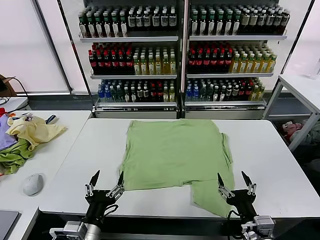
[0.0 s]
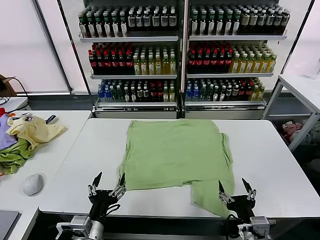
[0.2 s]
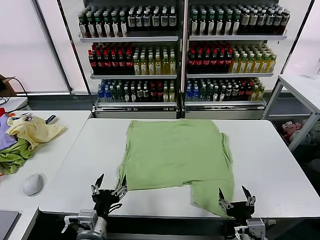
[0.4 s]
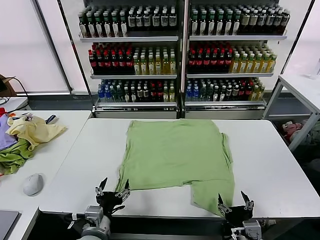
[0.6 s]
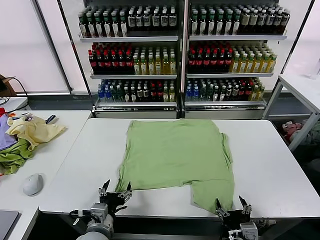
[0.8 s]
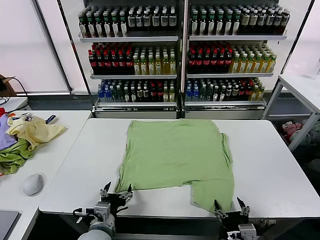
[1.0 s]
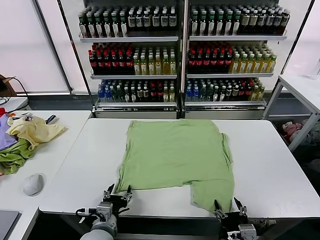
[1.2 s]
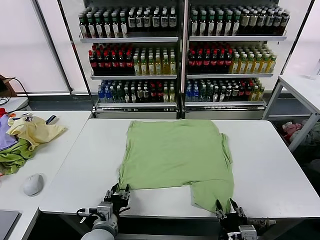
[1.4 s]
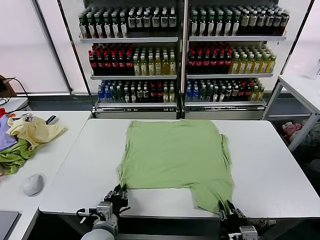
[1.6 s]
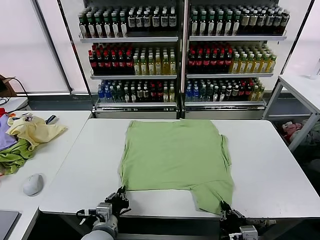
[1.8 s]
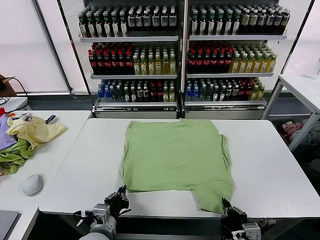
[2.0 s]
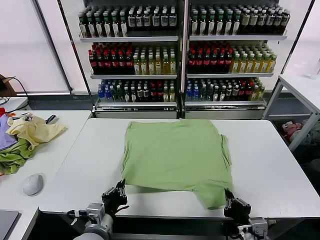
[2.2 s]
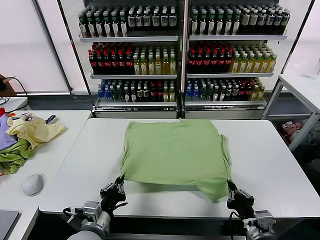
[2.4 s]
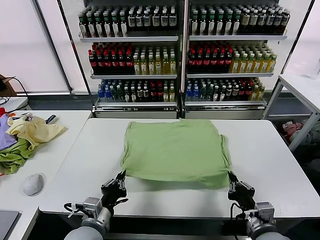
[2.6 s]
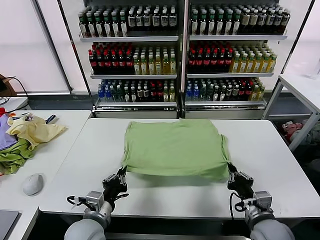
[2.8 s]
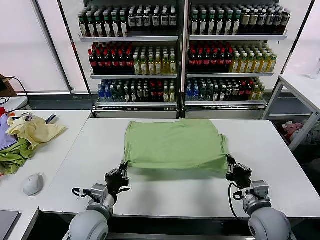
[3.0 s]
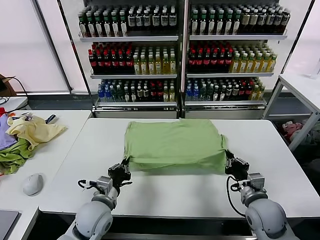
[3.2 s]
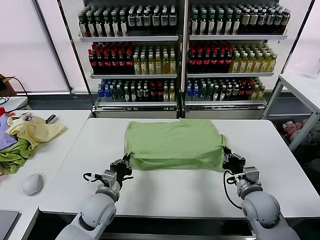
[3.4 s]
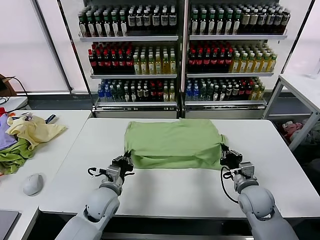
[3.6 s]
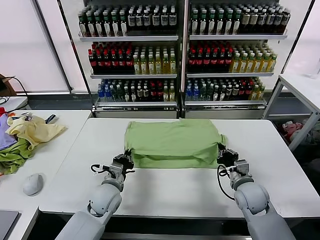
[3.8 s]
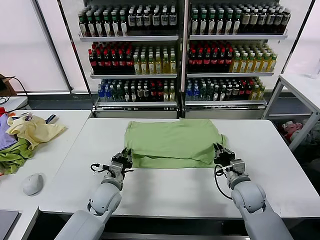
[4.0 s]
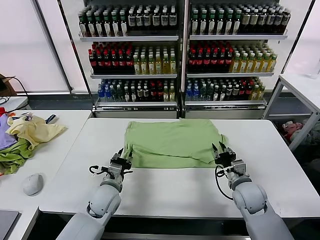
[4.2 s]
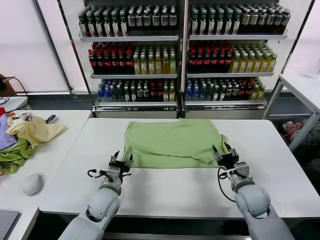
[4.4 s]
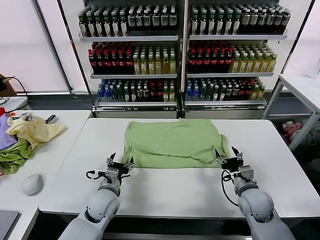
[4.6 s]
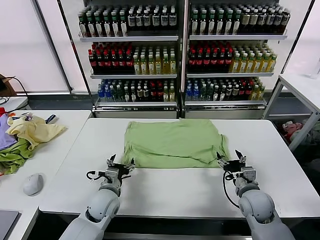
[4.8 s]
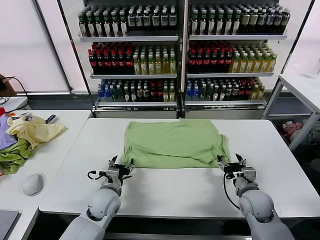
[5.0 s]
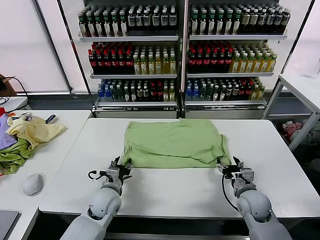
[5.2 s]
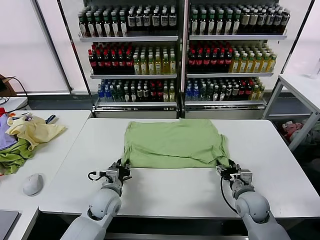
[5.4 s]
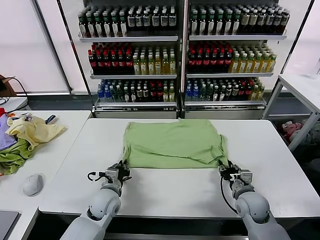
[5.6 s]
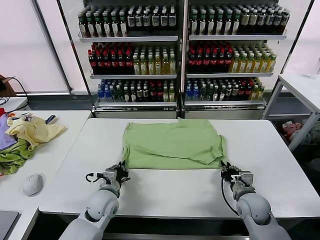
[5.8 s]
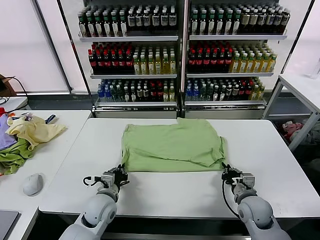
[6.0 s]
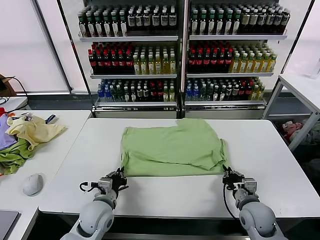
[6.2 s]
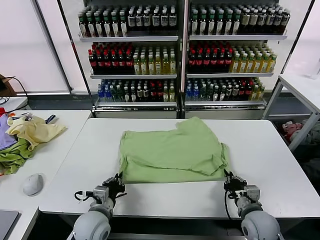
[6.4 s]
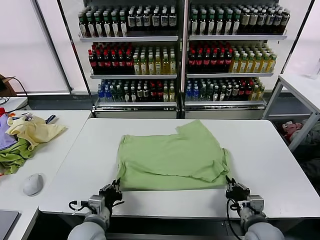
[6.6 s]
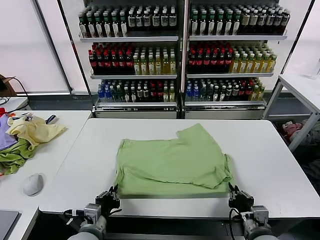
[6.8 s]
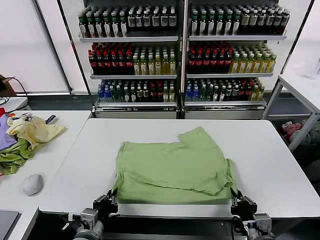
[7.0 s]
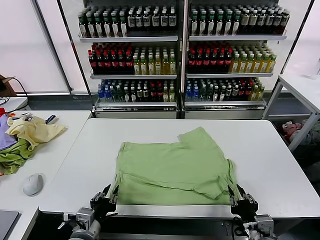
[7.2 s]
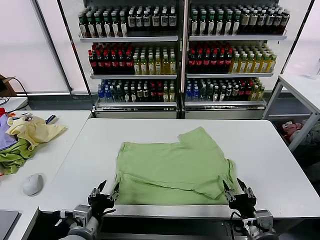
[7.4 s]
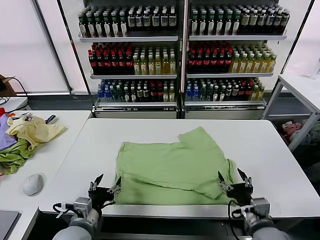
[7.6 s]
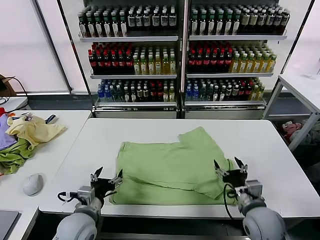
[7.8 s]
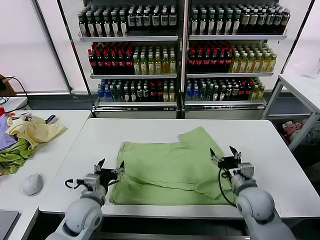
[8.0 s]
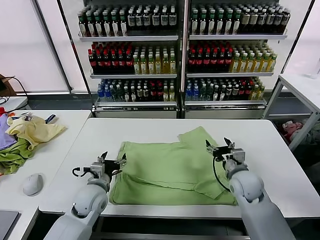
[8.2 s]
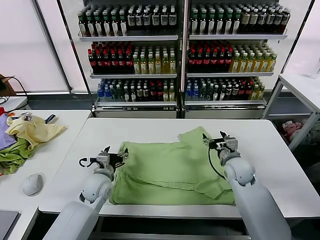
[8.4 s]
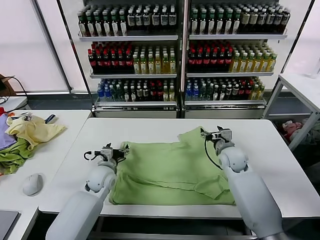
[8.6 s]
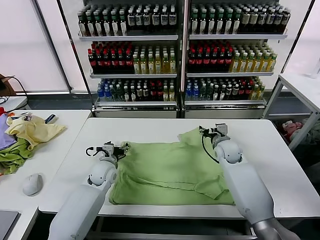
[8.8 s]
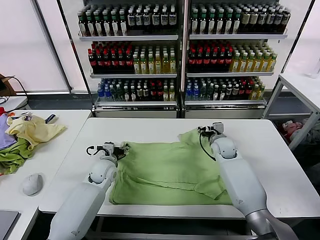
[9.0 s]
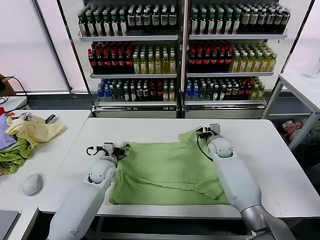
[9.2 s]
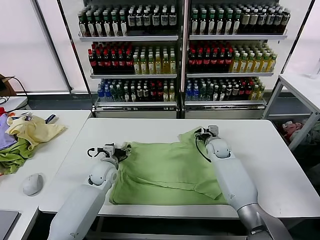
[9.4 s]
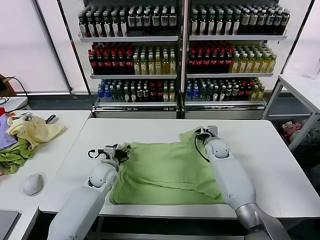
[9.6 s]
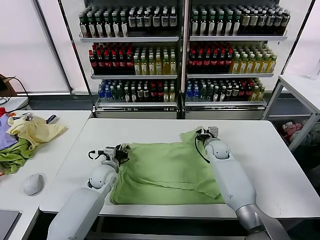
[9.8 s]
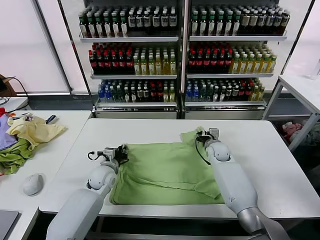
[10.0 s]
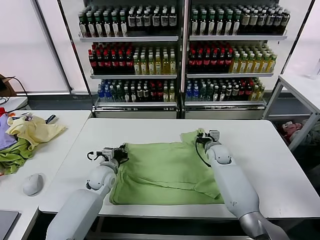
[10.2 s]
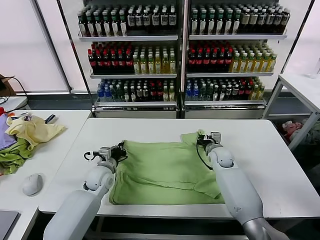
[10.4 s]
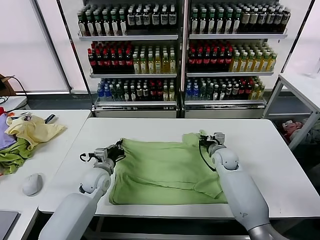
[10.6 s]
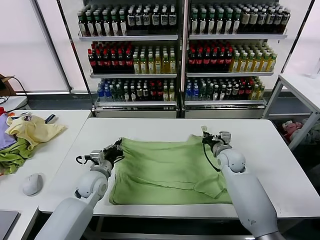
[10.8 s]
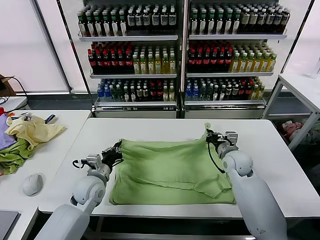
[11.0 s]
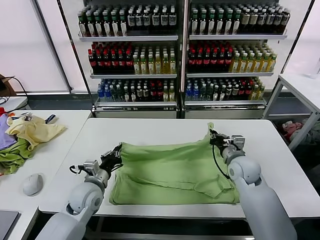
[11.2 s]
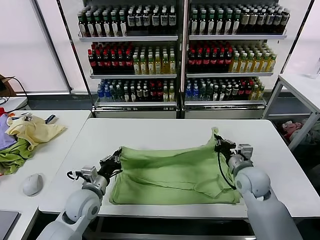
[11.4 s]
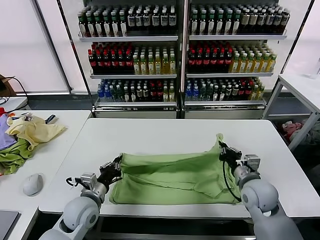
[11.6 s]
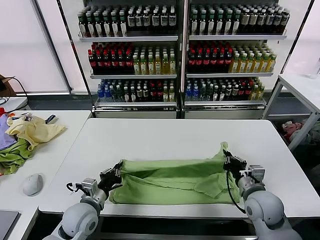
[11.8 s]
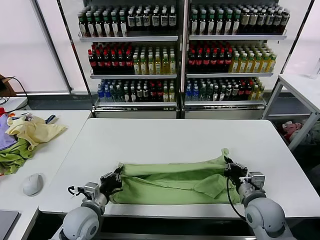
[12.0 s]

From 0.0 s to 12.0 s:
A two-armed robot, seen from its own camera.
Task of the whole recording: fold and organize the clothes.
Step, from 0.0 s to 1.8 s: use both grippers simultaneously to clamp the lower edge of the clothing fabric.
Step, from 2.0 s to 4.2 s: use both grippers to drag the lower edge of the fabric forward and fold it over the upper edge.
Step, from 4.4 s to 7.2 s: Drag the clothes downward with both gripper.
Step, from 7.4 s to 10.2 s: use both grippers simultaneously to clamp the upper edge of the clothing fabric.
From 1.6 s to 3.0 s: The left gripper is displaced forward by some 5 cm. The right gripper shifts roughly 15 cm forward.
From 3.0 s to 4.4 s: The grippers both shift forward by some 5 cm. The right gripper opens. Meanwhile the left gripper opens up.
From 4.4 s to 6.0 s: The right gripper closes up; the left gripper closes.
From 6.0 s to 7.6 s: Both grippers move backward and upward, some 10 cm. The left gripper opens. The right gripper opens up.
From 7.6 s to 9.0 s: The grippers both shift forward by some 30 cm.
From 9.0 s to 10.4 s: The left gripper closes its fingers. Meanwhile the right gripper closes its fingers.
From 10.4 s to 12.0 s: The two grippers go some 20 cm backward.

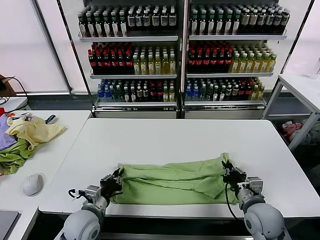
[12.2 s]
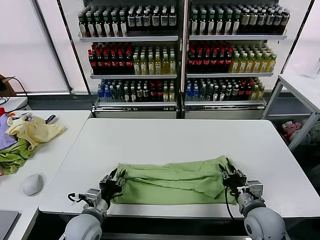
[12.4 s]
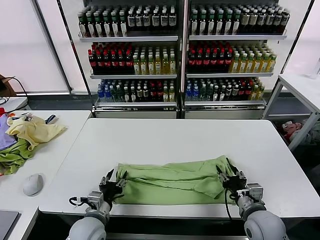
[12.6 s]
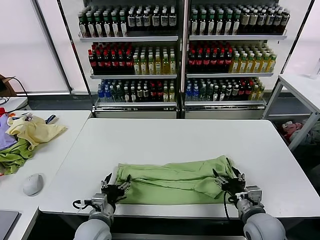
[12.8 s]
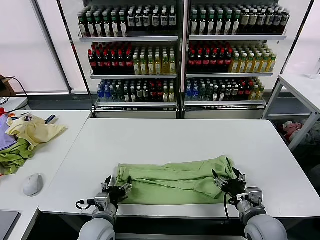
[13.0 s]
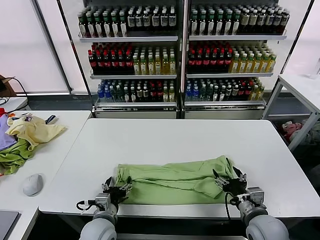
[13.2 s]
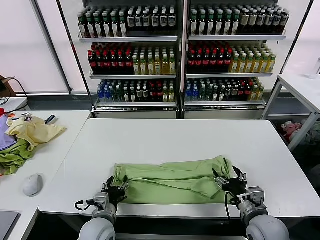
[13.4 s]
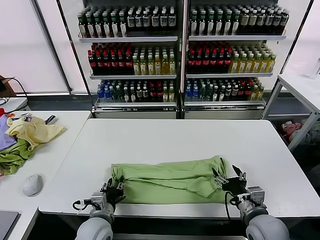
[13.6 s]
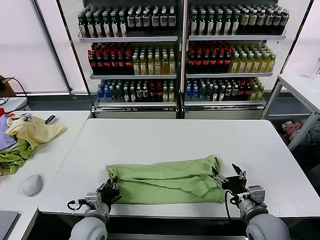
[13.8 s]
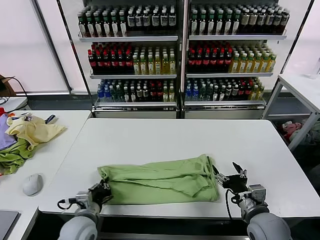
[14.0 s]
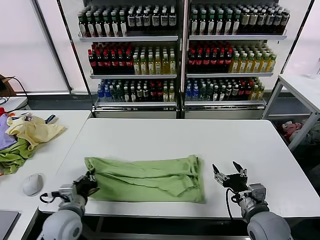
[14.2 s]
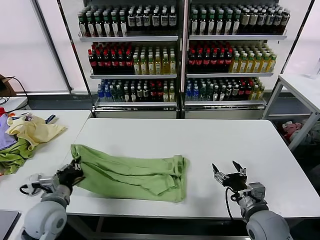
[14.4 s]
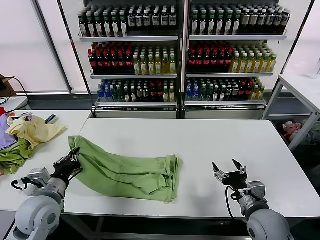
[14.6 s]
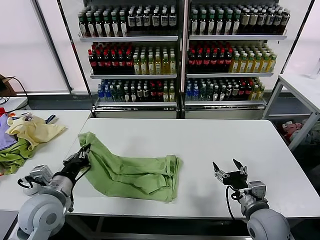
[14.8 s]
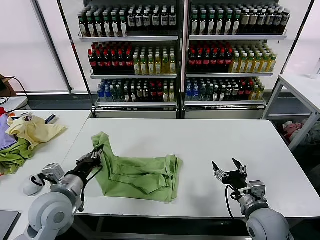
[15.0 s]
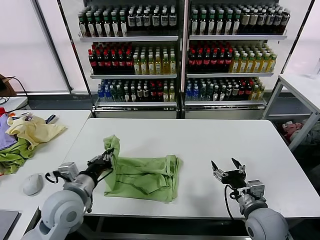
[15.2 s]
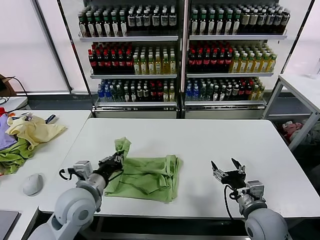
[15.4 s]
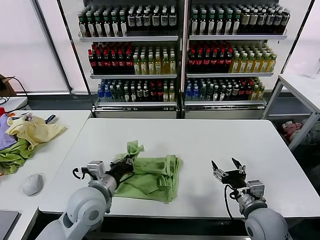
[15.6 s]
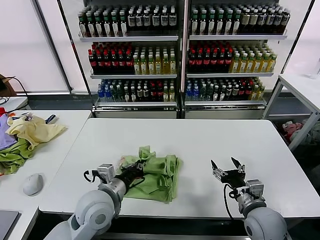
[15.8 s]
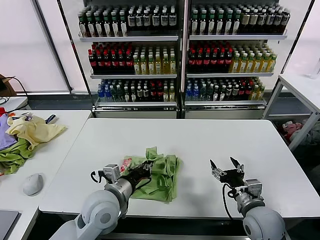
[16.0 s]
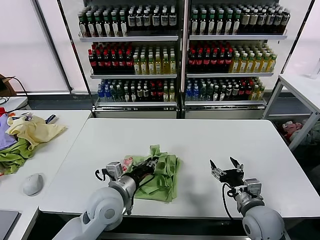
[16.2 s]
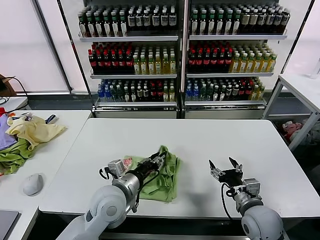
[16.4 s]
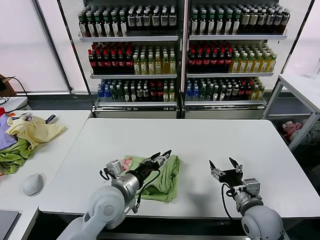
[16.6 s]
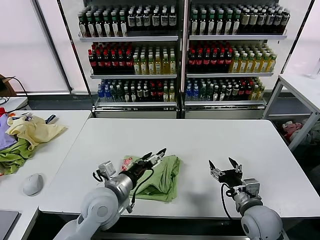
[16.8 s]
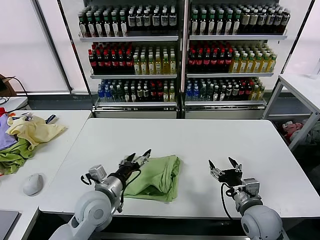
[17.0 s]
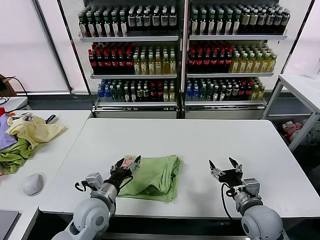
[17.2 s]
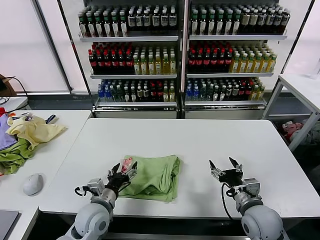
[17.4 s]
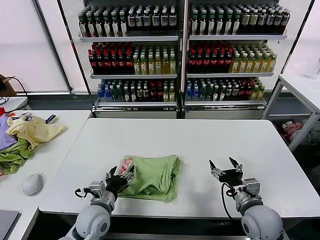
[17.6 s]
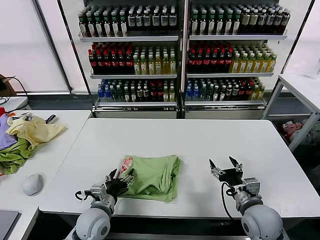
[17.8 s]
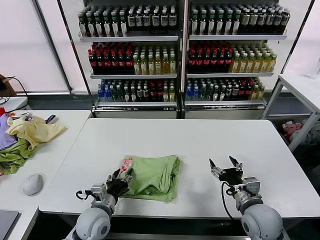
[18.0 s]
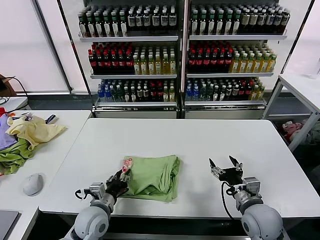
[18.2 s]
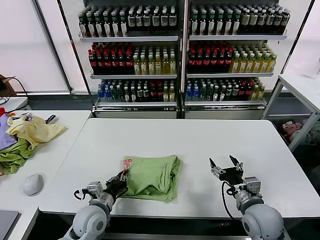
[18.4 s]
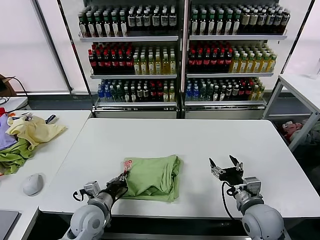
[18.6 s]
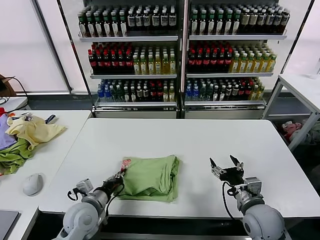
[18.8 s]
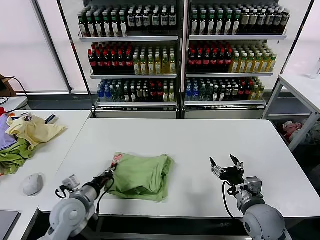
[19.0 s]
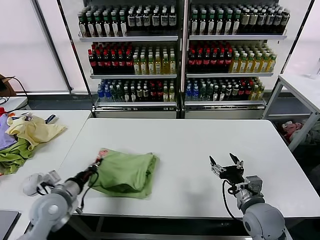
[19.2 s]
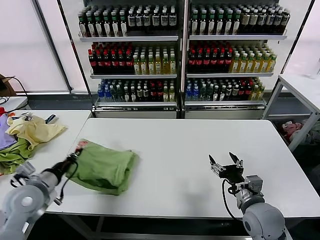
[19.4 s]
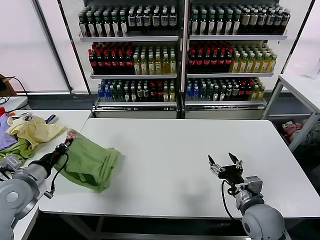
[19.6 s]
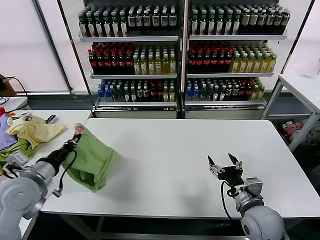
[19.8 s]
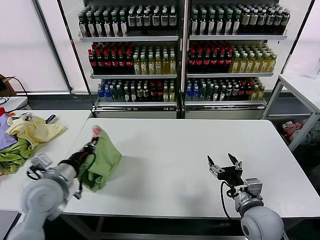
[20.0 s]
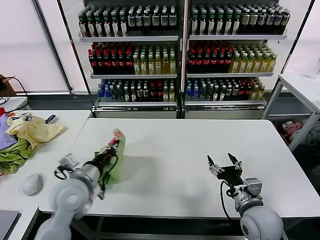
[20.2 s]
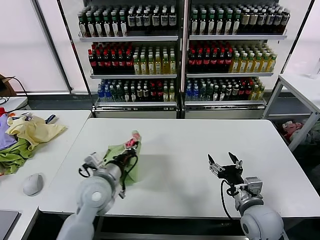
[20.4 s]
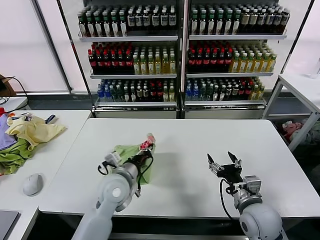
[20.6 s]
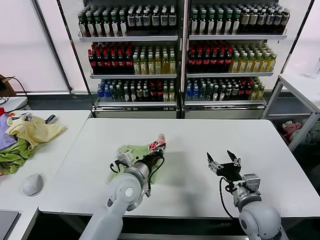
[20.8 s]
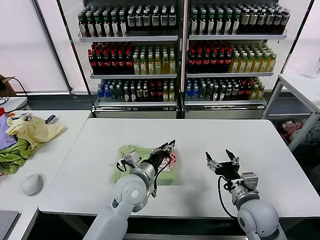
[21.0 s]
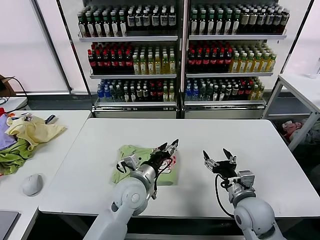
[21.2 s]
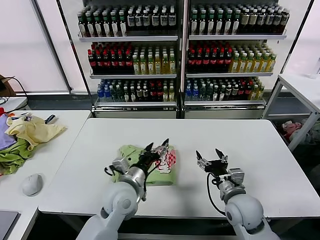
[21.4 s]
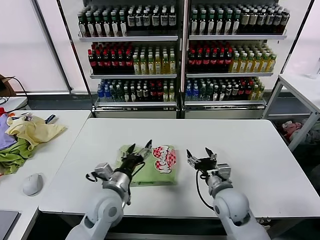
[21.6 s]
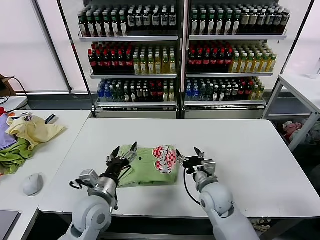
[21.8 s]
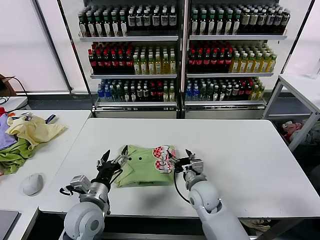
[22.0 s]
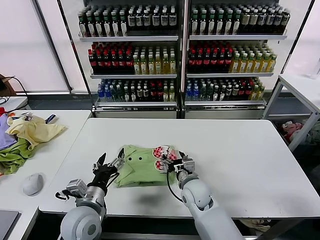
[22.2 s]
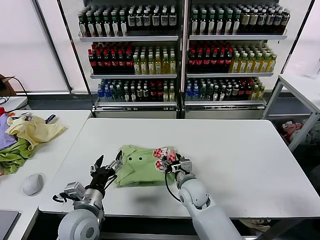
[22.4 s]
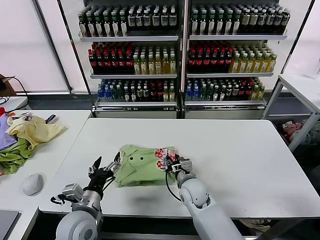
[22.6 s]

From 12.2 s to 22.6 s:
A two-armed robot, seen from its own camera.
Task of the whole recording: fold and organize the clothes.
Step, from 12.6 s to 13.8 s: use the left gripper to clamp the left edge of the fabric.
Step, from 14.0 s to 16.4 s: use the left gripper to drag the left edge of the fabric to the left and folds it over the right edge.
Step, from 16.6 s to 21.0 s: Flip the folded clothes over with left gripper.
From 12.2 s to 13.6 s: The right gripper opens its fingers. The left gripper opens, then closes once more.
From 13.6 s to 15.2 s: The left gripper is displaced upward and to the left by approximately 15 cm, and closes its fingers.
From 15.2 s to 16.6 s: The left gripper heads to the right, covering roughly 10 cm, and opens its fingers.
From 16.6 s to 18.2 s: The left gripper goes about 15 cm downward and to the left.
From 18.2 s to 19.6 s: The left gripper moves to the left and upward, approximately 25 cm, and closes its fingers.
From 19.6 s to 21.2 s: The left gripper is displaced to the right by some 30 cm, and opens its fingers.
From 21.2 s to 22.6 s: The right gripper moves to the left, forward and downward, some 20 cm, and closes. The left gripper heads to the left and backward, covering some 15 cm.
